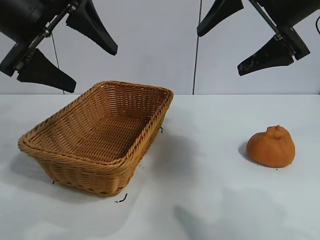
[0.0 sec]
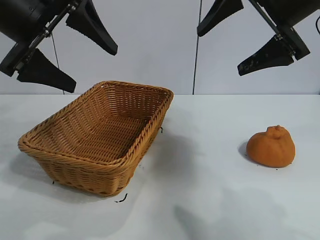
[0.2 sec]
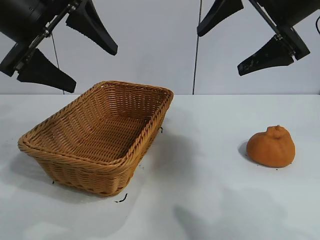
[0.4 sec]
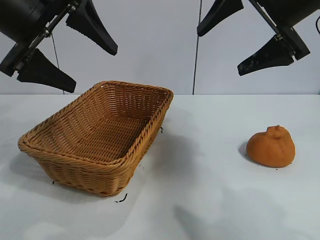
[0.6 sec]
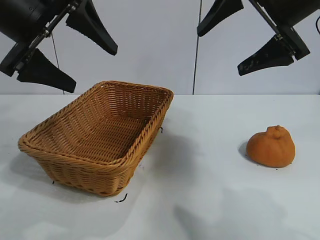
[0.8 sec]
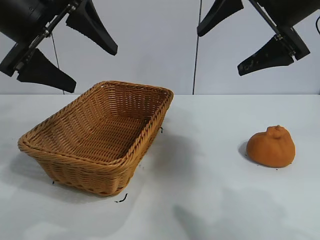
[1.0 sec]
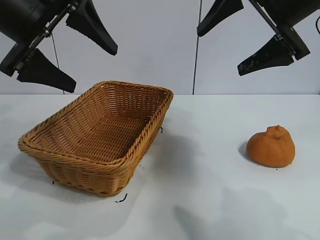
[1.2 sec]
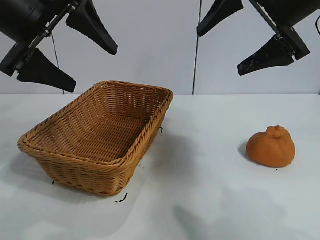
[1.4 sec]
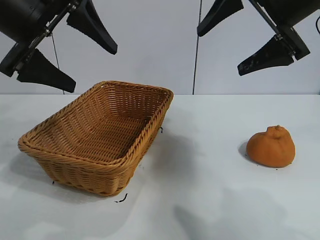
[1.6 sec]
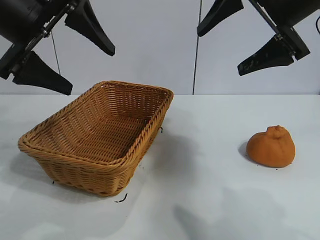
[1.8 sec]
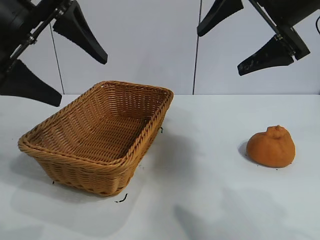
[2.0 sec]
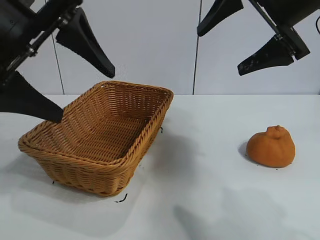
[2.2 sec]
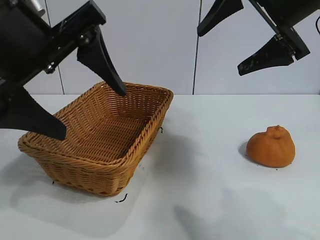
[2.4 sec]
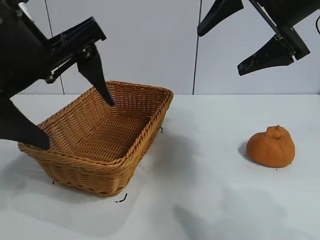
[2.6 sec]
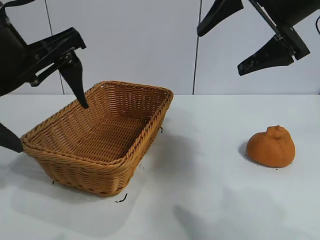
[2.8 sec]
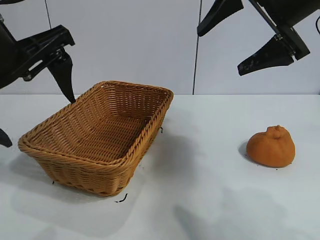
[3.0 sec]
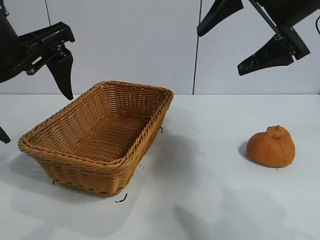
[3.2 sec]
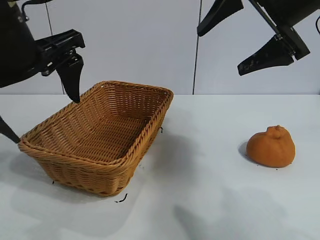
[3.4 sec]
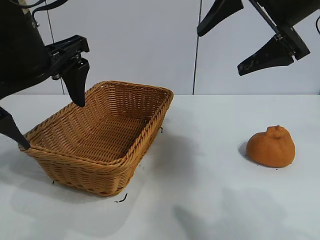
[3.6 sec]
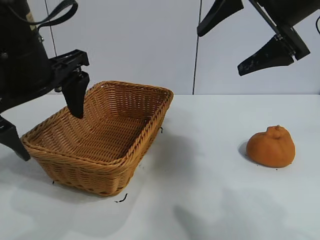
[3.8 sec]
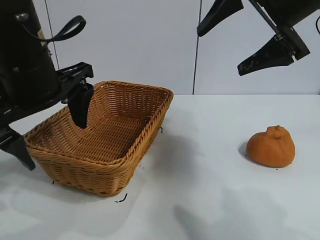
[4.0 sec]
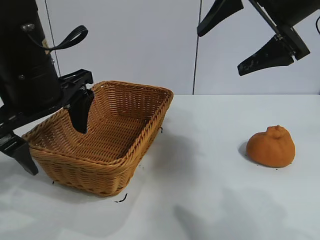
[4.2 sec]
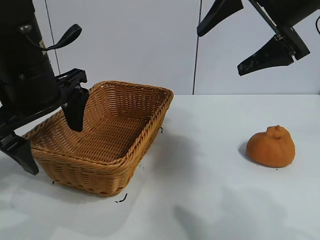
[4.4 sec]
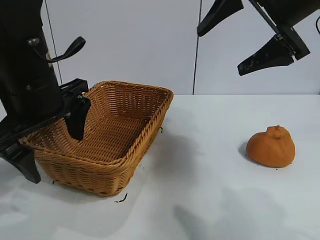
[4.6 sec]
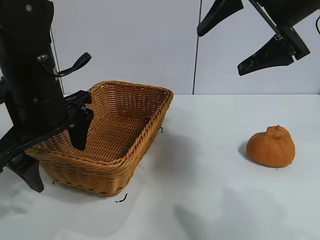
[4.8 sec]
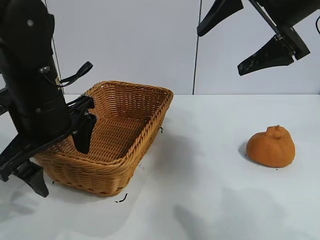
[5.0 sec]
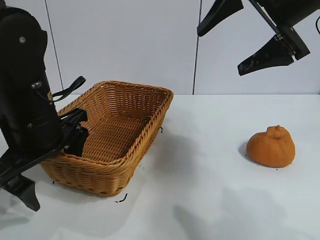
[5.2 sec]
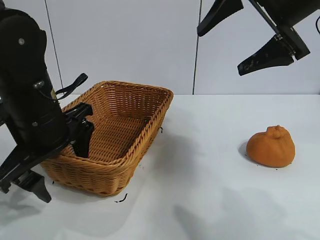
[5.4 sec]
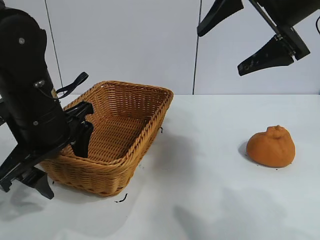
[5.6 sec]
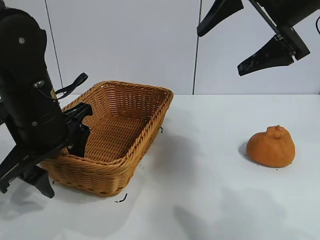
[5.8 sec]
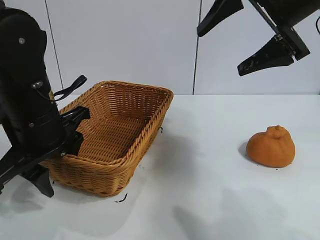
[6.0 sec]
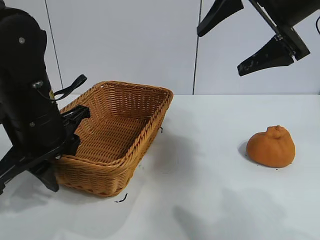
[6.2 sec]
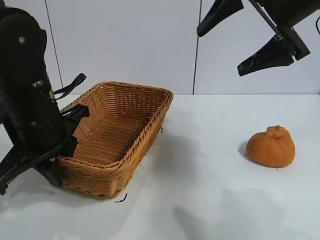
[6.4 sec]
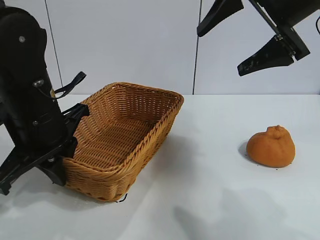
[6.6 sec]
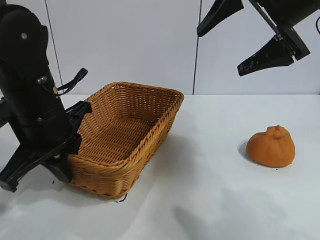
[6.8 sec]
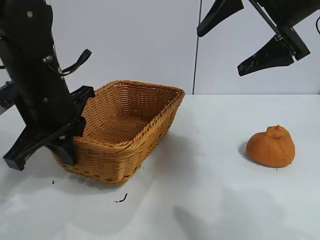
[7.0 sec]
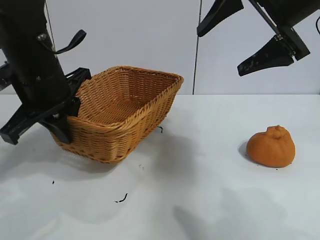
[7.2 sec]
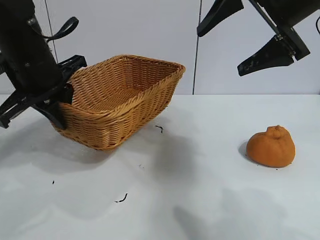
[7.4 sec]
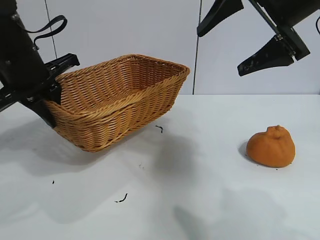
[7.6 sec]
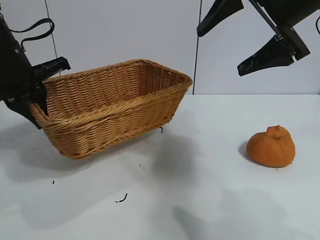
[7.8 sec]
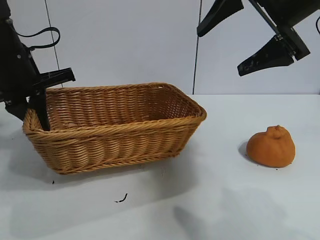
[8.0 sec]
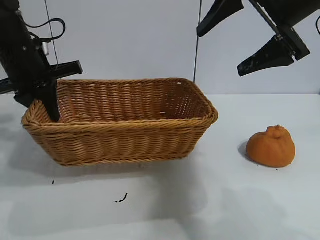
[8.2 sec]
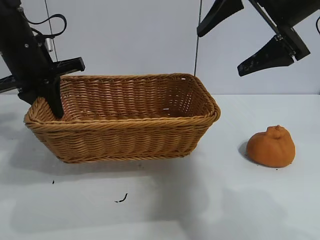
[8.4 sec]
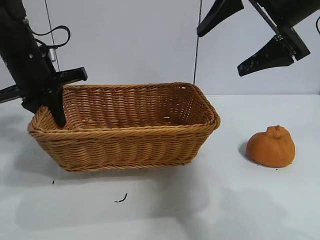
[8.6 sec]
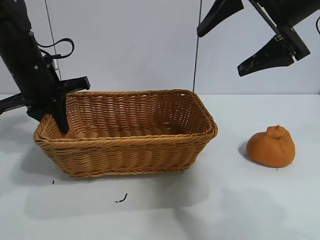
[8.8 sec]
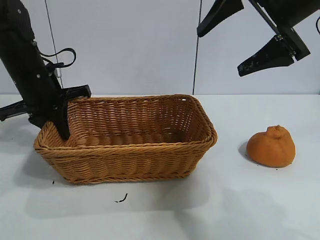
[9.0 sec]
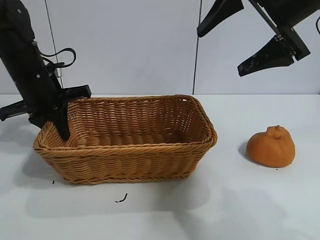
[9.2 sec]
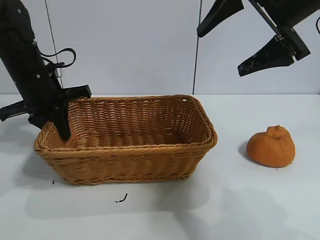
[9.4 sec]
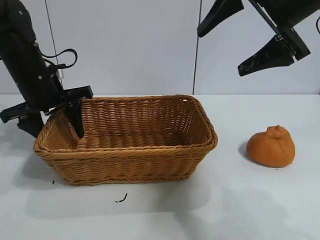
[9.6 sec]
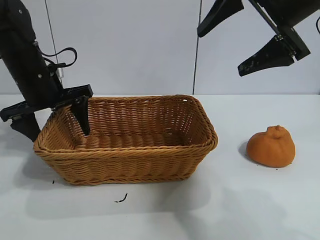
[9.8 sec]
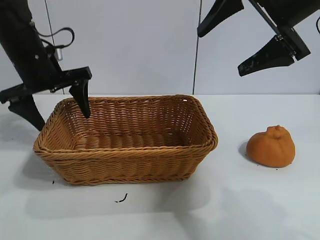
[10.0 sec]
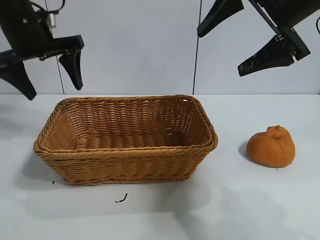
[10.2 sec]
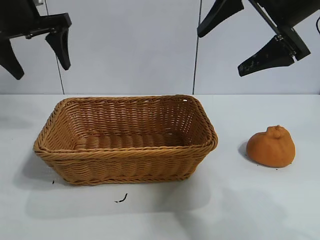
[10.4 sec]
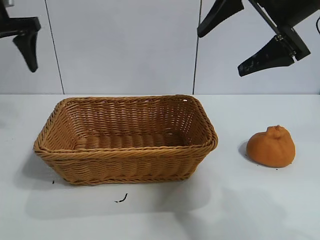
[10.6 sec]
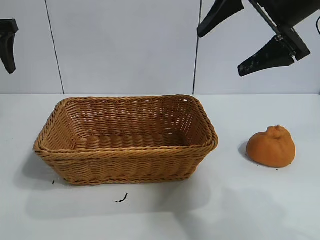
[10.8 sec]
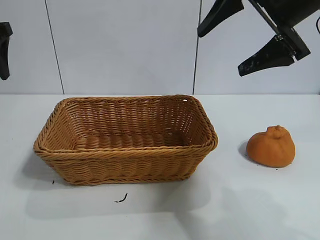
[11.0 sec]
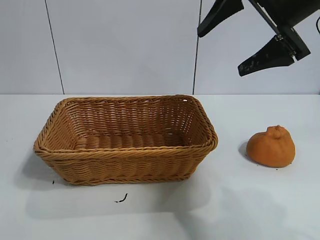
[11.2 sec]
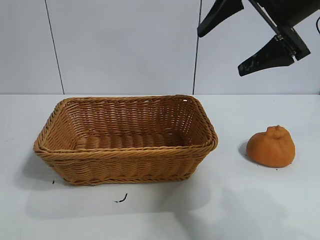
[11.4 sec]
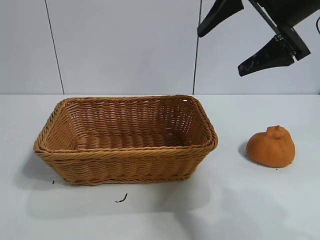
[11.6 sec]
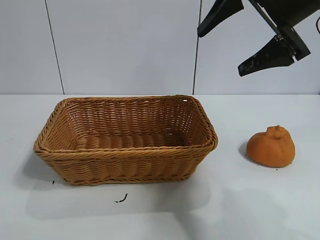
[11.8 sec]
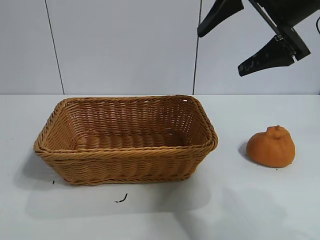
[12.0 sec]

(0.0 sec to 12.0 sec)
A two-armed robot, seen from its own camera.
Task of the whole recording: pick up the orange and put it into the basket.
Step, 1.6 sec - 6.4 sec: Grasp the basket with left gripper.
Step, 6.8 sec - 9.8 sec: Place the basket in the center of view with left gripper.

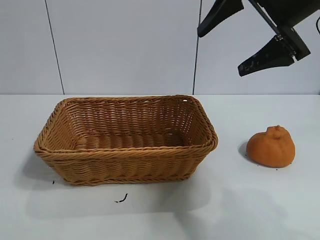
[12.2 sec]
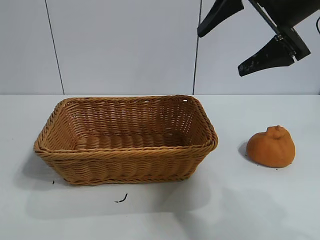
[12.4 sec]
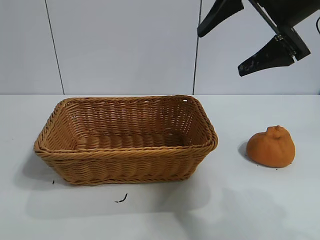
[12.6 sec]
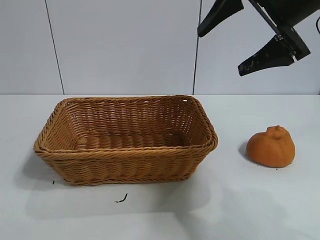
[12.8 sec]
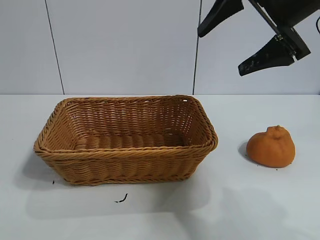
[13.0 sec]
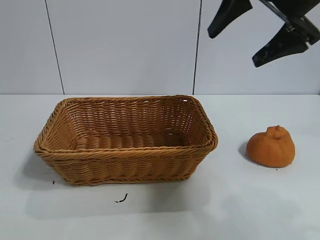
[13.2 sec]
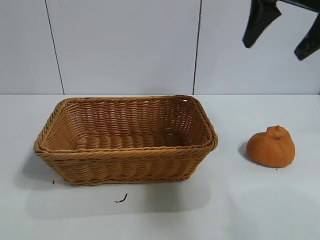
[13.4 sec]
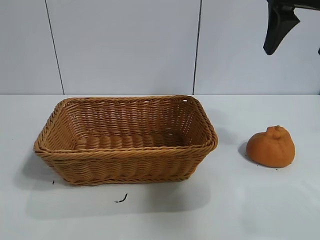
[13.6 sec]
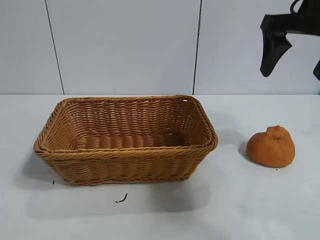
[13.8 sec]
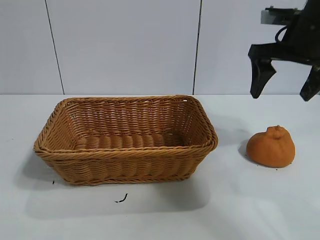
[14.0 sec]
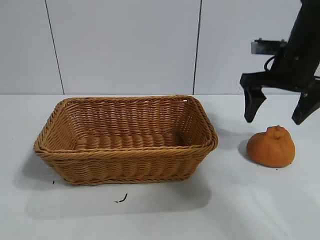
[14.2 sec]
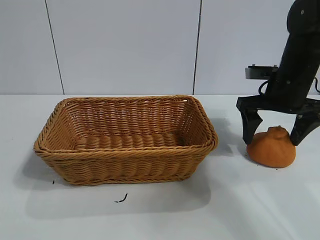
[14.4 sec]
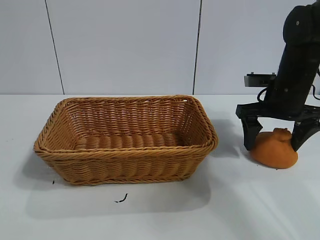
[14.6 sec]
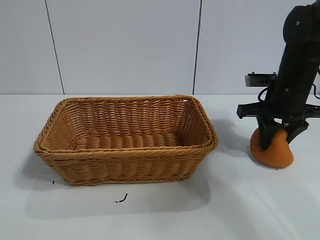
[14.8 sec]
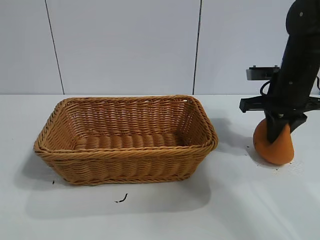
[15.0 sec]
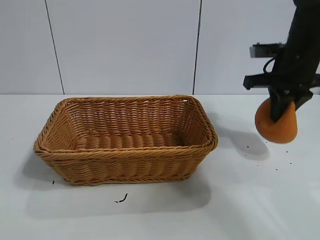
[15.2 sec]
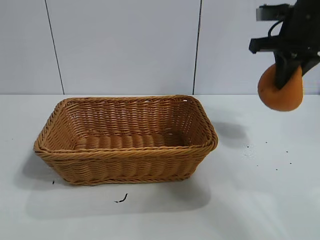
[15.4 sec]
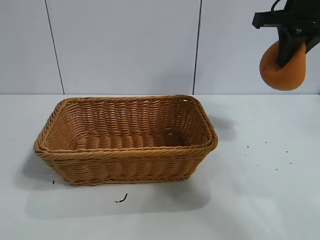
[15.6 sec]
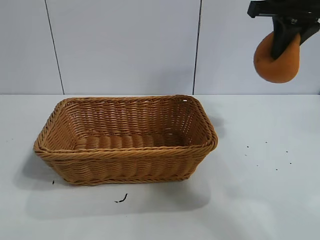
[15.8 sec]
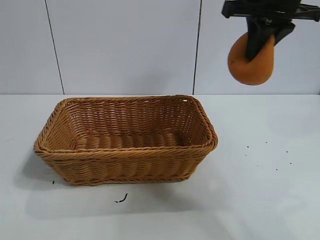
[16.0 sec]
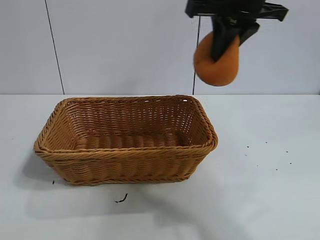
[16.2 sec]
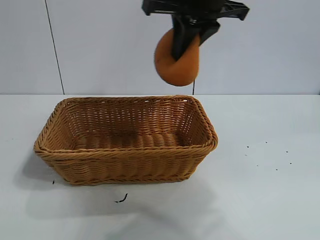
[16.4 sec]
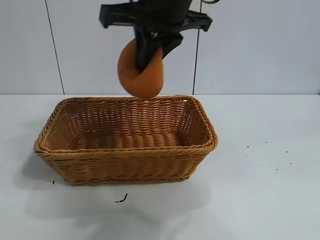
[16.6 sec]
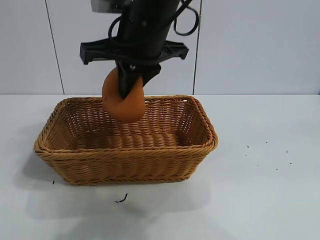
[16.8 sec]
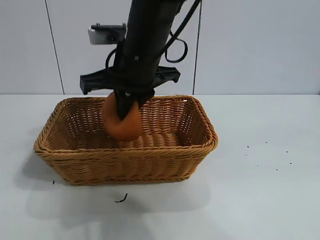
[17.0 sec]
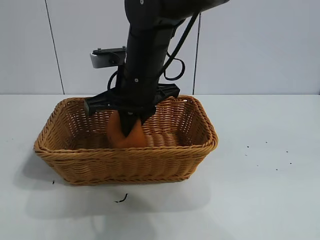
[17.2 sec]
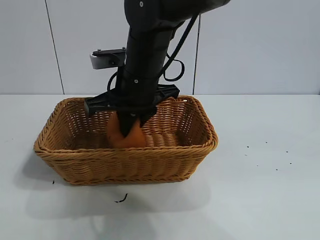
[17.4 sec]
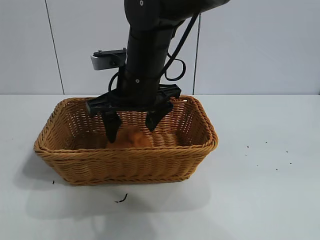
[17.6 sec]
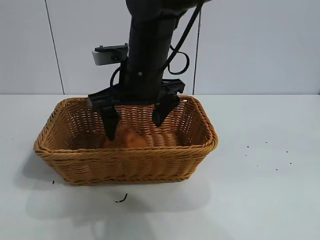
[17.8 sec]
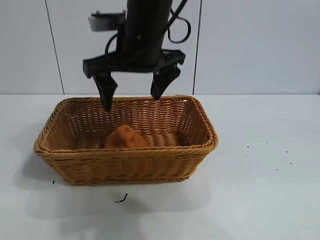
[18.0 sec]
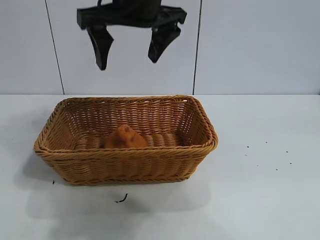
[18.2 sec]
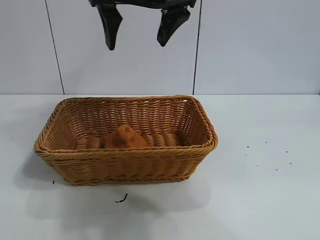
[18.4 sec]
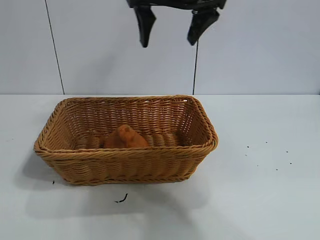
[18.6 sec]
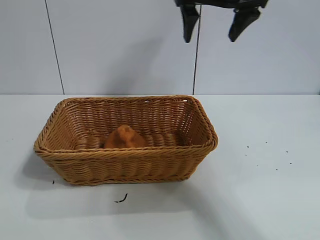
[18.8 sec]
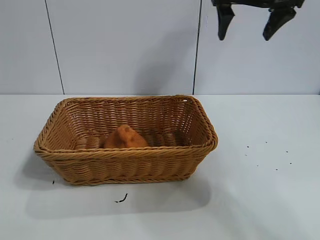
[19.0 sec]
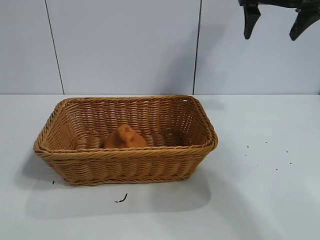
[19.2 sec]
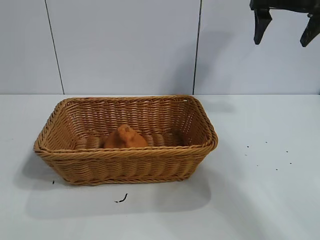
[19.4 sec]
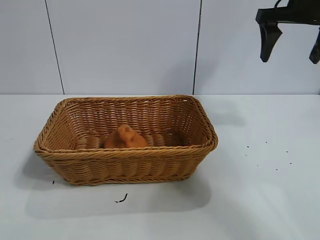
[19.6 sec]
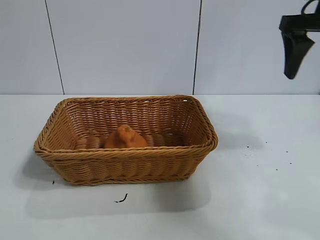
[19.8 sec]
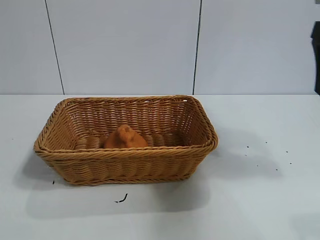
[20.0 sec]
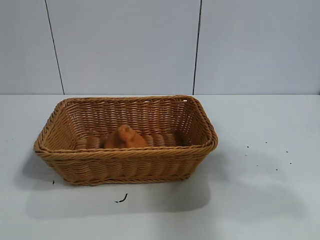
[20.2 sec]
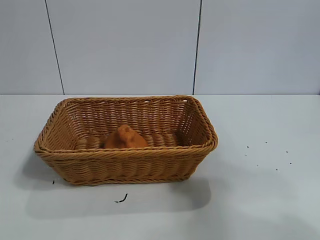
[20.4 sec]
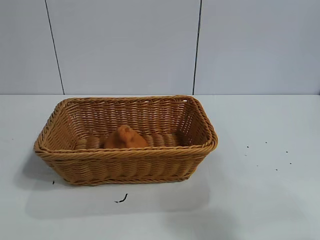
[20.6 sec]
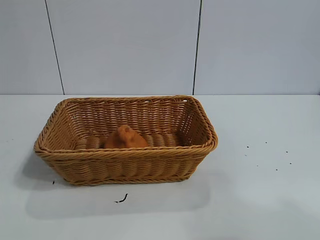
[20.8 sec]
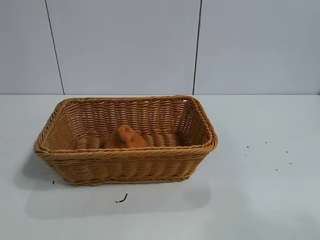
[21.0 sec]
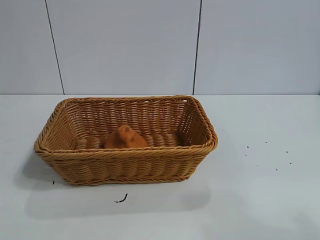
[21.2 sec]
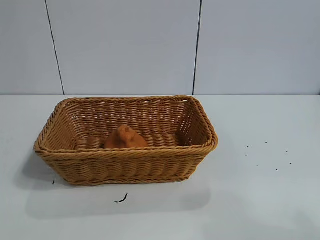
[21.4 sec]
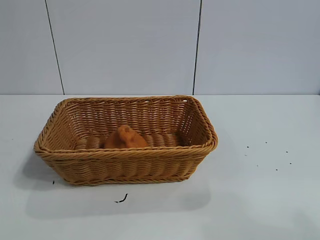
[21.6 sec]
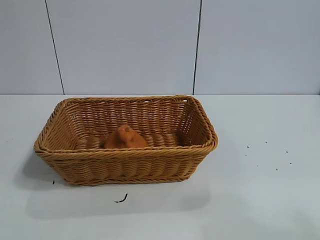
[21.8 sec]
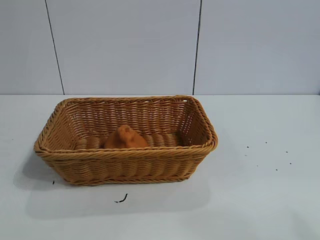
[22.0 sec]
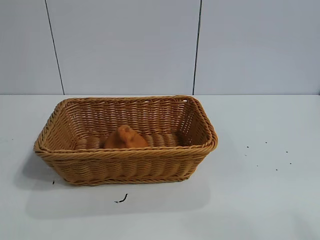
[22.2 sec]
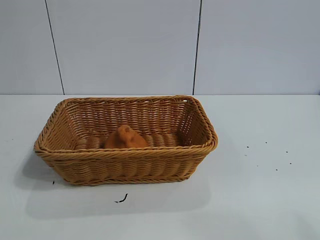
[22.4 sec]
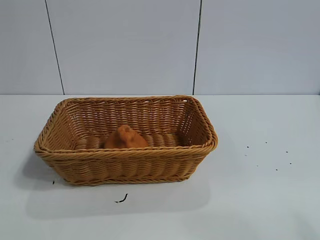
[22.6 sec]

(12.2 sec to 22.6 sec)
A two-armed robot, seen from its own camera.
Task of the whole recording: pick up the orange and put it into the basket.
Step, 12.2 sec - 15.0 sec: Grasp the orange with right gripper.
Step, 15.2 sec - 17.6 sec: Place the orange in the basket with right gripper.
